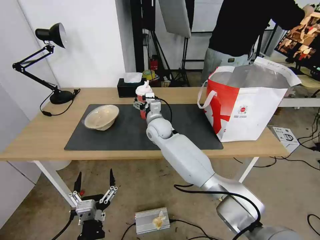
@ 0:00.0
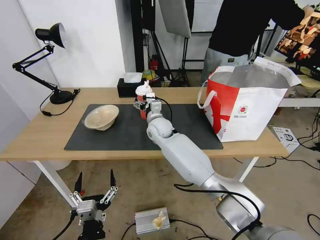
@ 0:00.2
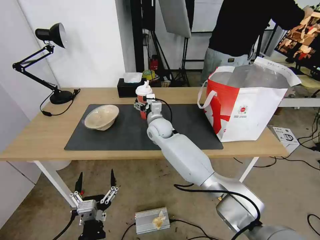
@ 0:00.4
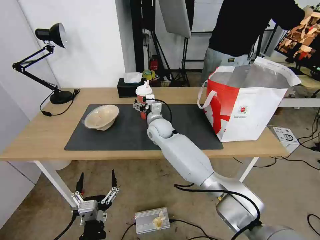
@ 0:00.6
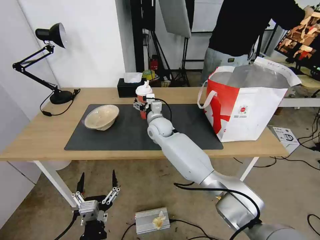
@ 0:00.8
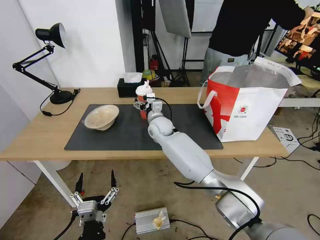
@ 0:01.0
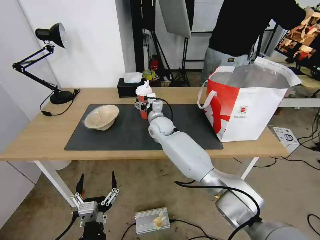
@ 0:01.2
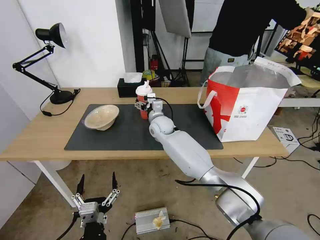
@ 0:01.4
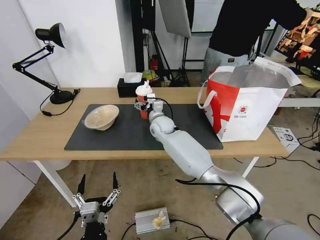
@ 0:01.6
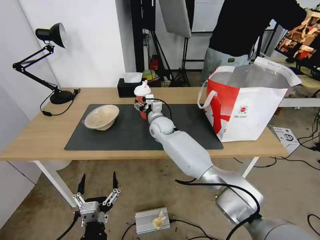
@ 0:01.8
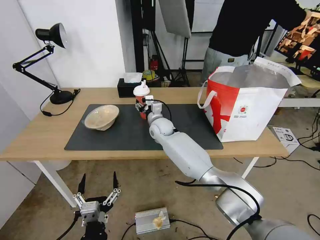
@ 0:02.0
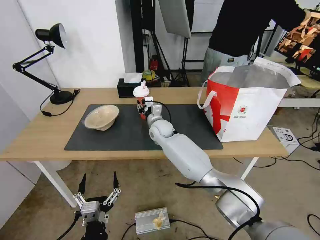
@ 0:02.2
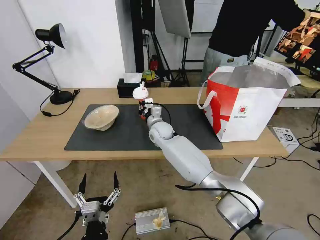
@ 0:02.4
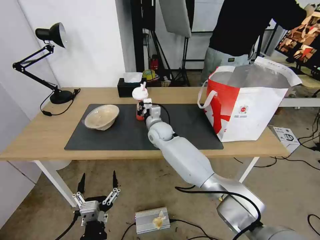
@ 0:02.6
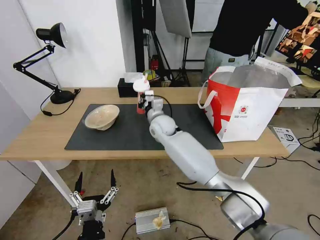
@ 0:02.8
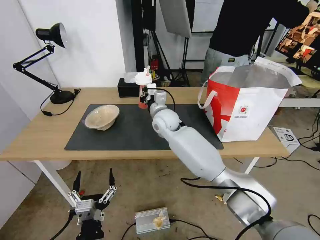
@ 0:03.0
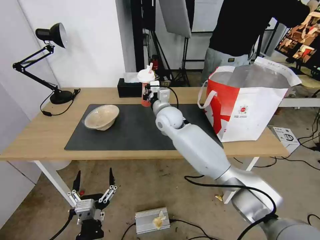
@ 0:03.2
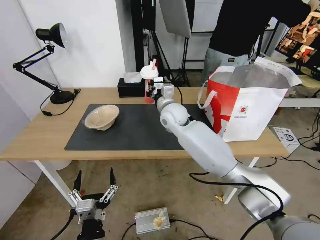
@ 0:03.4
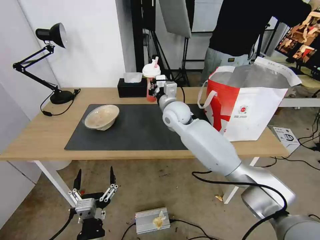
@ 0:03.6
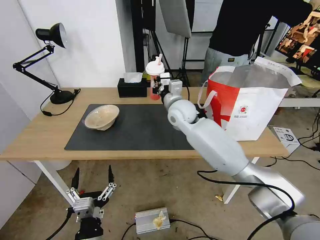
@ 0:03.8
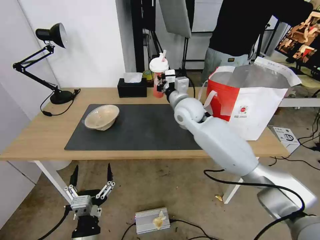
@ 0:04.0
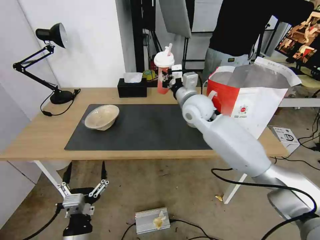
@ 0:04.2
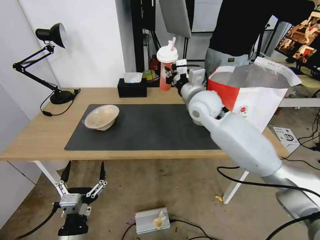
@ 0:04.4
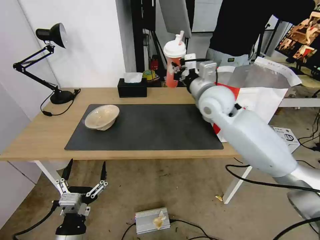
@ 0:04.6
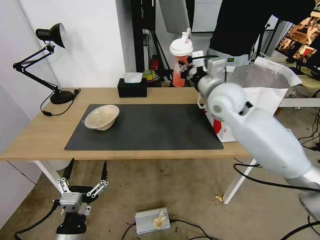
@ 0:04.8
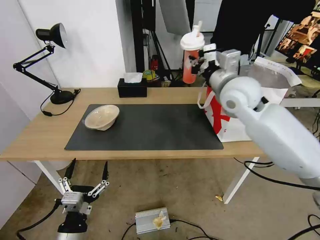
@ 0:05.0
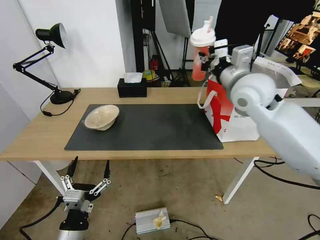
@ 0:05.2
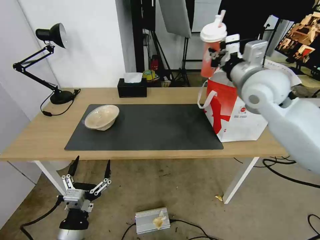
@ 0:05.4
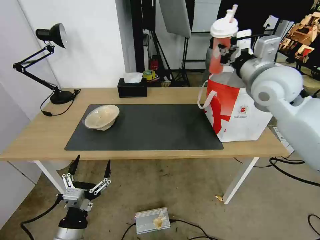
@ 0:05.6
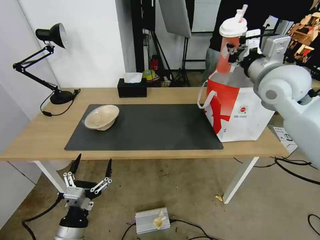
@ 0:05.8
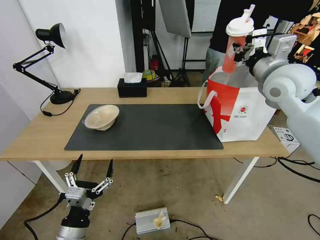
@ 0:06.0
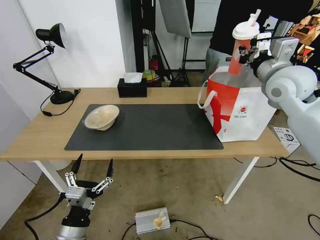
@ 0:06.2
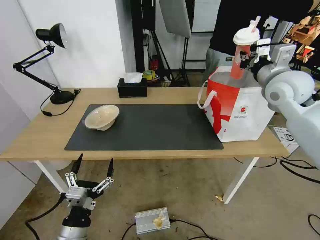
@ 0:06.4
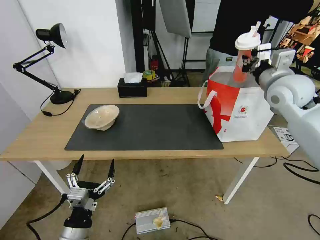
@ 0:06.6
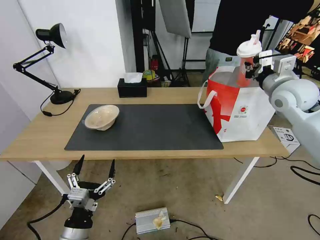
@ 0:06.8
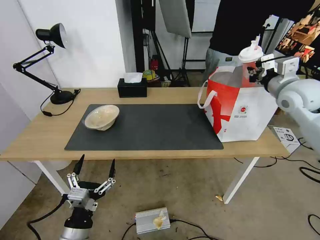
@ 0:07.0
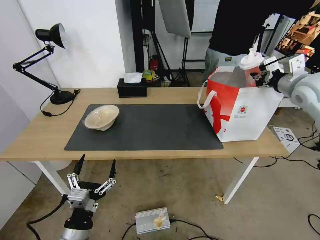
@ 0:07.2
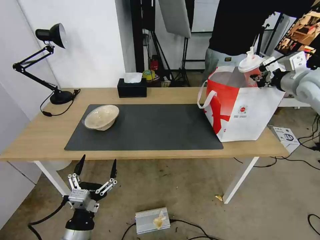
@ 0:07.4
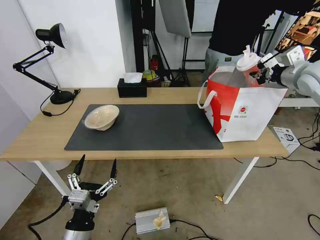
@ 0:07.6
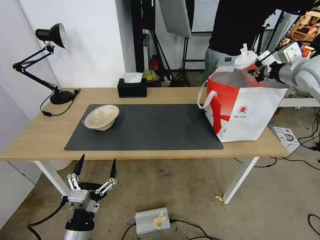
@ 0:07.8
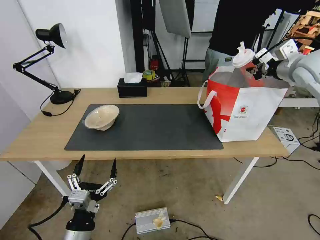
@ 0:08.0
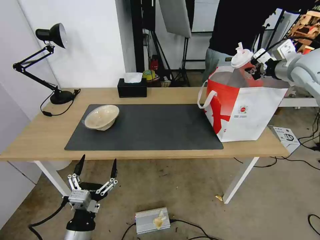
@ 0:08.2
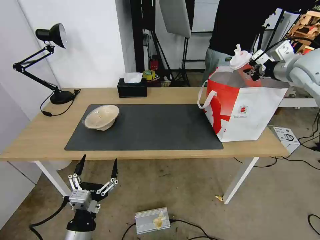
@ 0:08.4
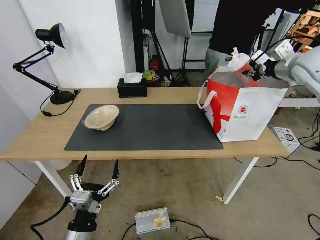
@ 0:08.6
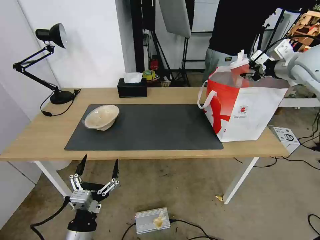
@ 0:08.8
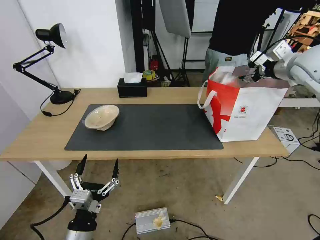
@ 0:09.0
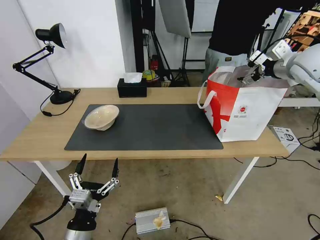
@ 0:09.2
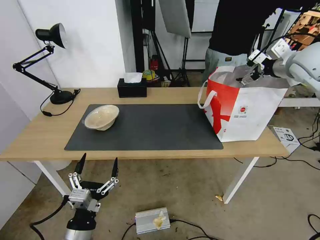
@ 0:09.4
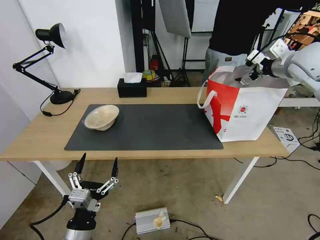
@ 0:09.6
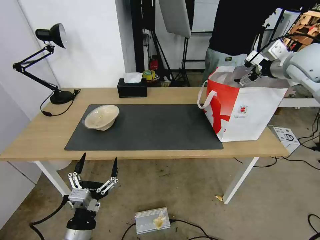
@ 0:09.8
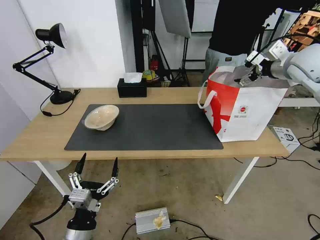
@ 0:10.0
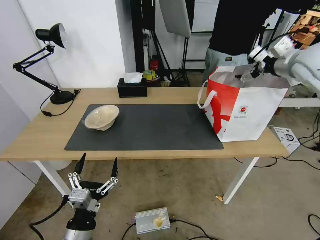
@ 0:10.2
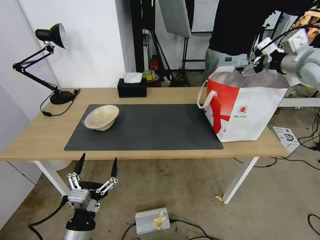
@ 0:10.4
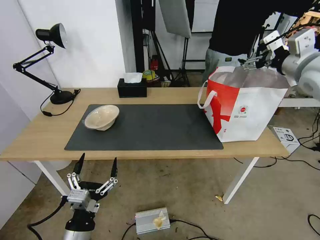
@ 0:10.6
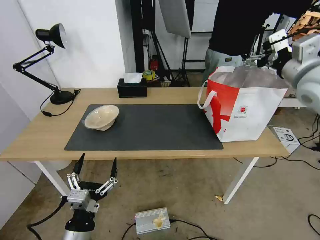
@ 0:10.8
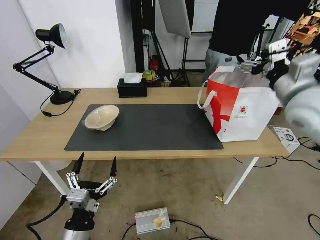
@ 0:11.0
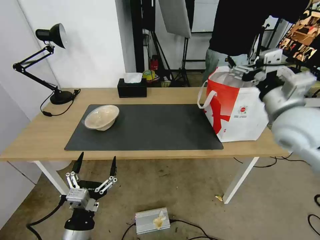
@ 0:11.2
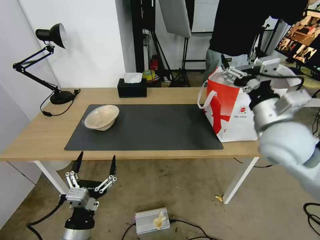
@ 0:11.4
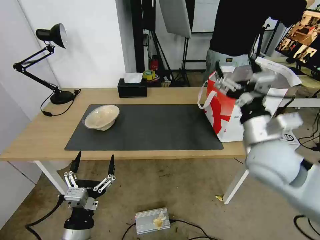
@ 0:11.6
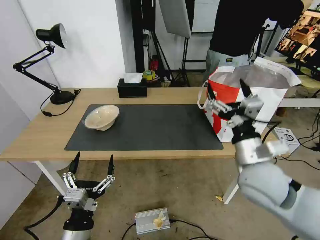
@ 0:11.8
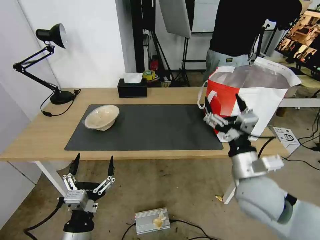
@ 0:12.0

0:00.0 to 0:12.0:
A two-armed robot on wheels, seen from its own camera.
Task of the whole recording: Pick up the trash from the table and place it into the takeout bag.
0:00.0 to 0:01.6: The right gripper ends up some 5 cm from where it was.
0:01.6 to 0:03.0: The right gripper travels upward by about 5 cm, and closes up.
0:03.0 to 0:04.4: The right gripper heads to the right and upward, covering approximately 15 cm. The left gripper changes place by roughly 5 cm.
0:04.4 to 0:06.0: The right gripper shifts some 20 cm to the right and upward.
0:06.0 to 0:07.6: The right gripper moves to the right, about 10 cm.
0:07.6 to 0:09.0: The right gripper opens.
0:09.0 to 0:10.4: The right gripper opens.
0:10.4 to 0:12.0: The right gripper is displaced downward, backward and to the left by roughly 35 cm.

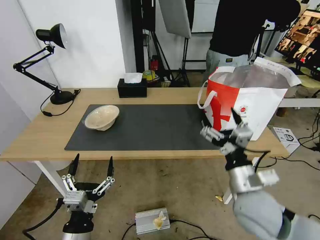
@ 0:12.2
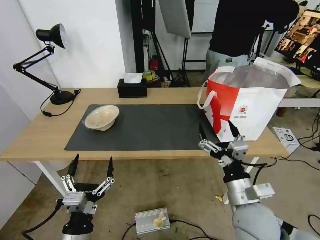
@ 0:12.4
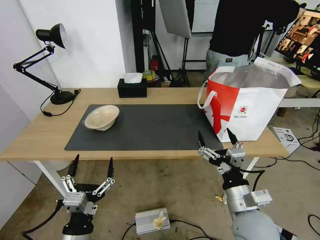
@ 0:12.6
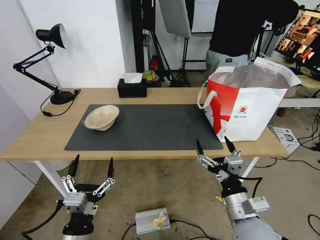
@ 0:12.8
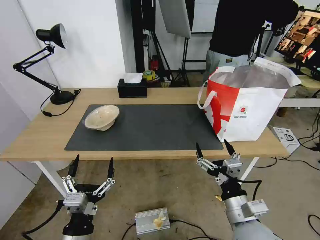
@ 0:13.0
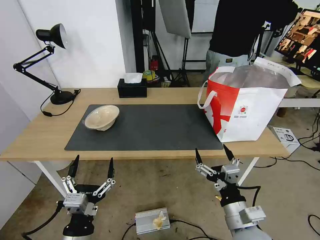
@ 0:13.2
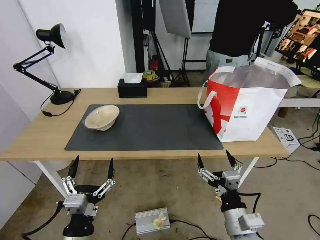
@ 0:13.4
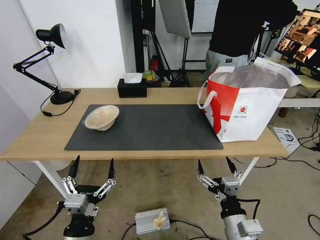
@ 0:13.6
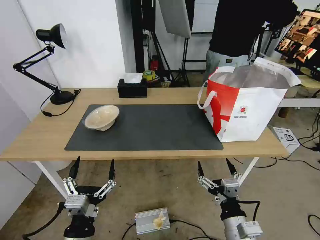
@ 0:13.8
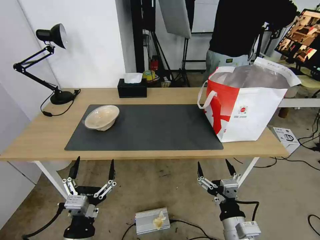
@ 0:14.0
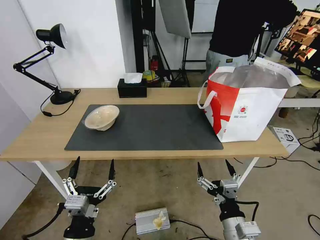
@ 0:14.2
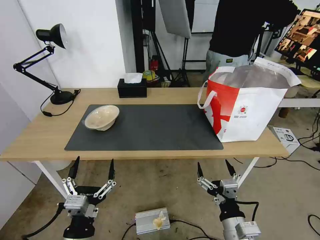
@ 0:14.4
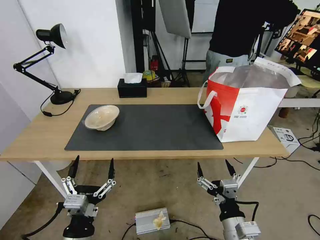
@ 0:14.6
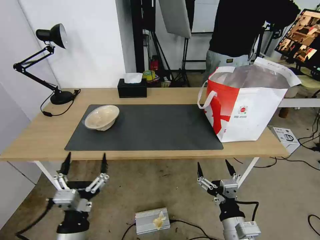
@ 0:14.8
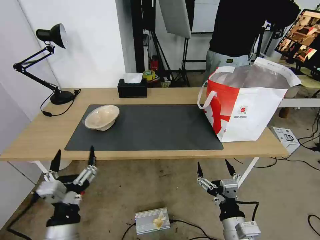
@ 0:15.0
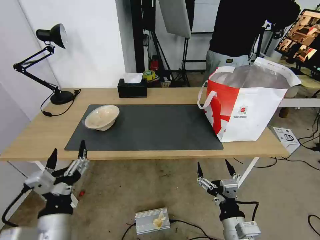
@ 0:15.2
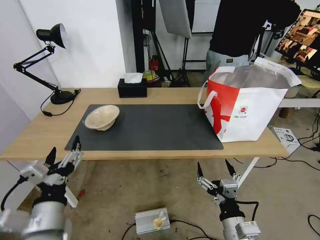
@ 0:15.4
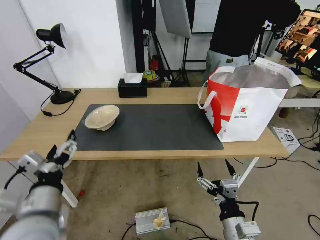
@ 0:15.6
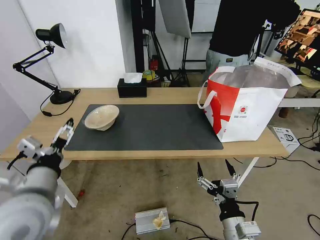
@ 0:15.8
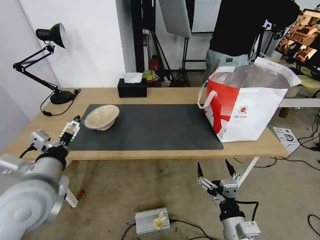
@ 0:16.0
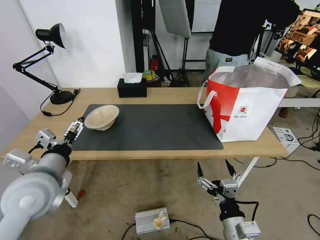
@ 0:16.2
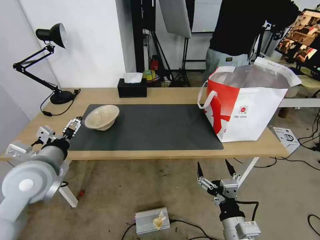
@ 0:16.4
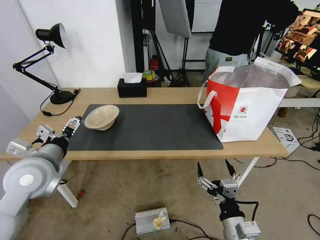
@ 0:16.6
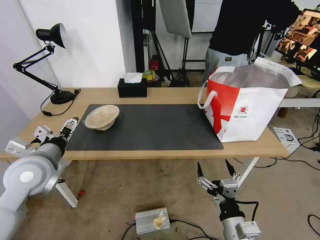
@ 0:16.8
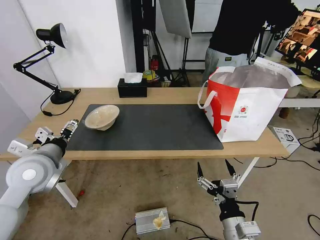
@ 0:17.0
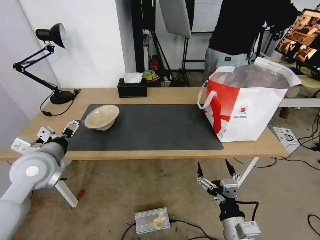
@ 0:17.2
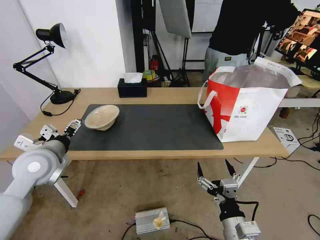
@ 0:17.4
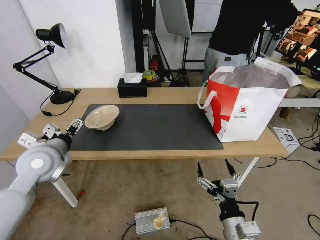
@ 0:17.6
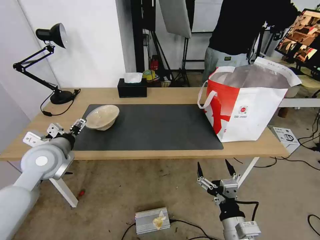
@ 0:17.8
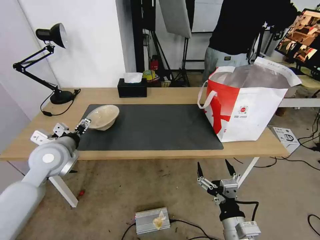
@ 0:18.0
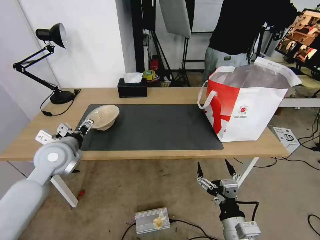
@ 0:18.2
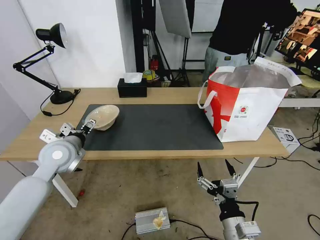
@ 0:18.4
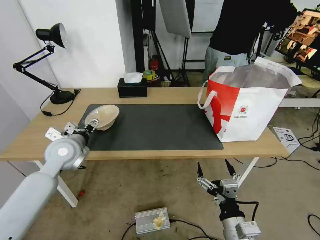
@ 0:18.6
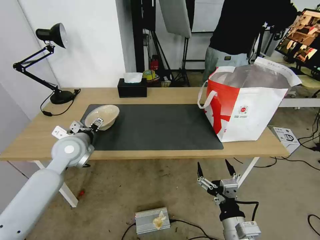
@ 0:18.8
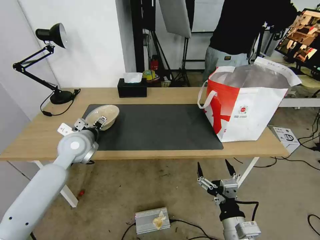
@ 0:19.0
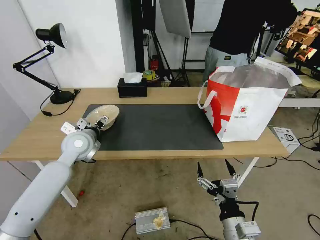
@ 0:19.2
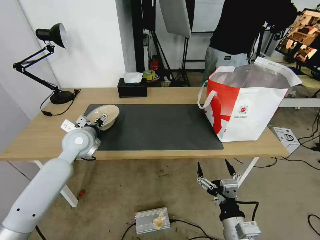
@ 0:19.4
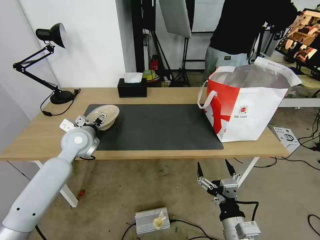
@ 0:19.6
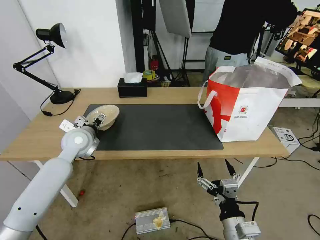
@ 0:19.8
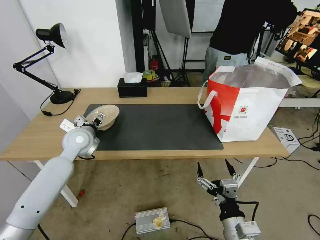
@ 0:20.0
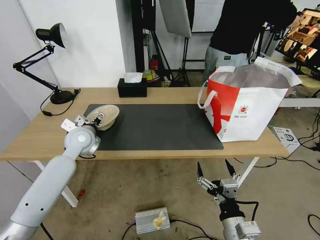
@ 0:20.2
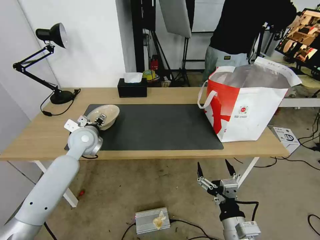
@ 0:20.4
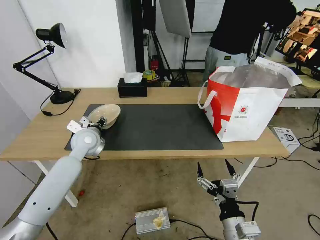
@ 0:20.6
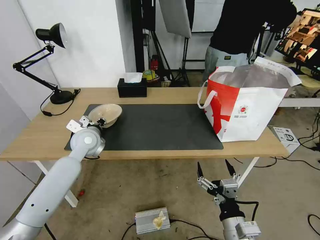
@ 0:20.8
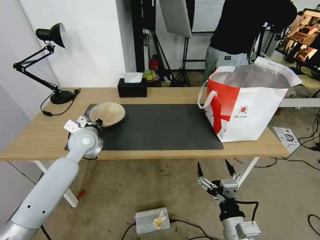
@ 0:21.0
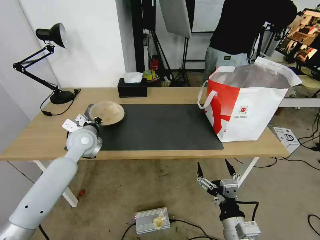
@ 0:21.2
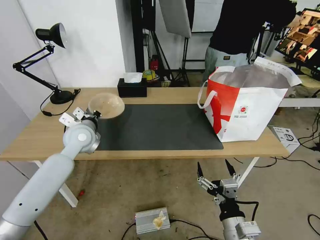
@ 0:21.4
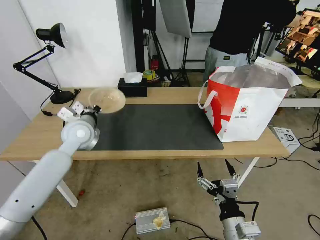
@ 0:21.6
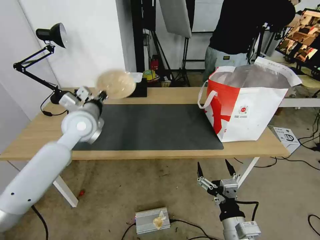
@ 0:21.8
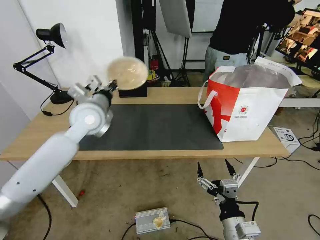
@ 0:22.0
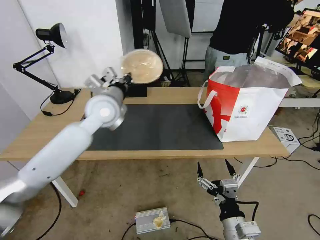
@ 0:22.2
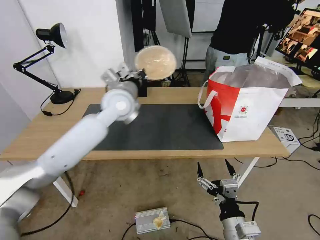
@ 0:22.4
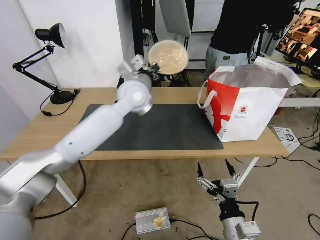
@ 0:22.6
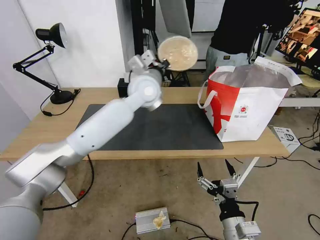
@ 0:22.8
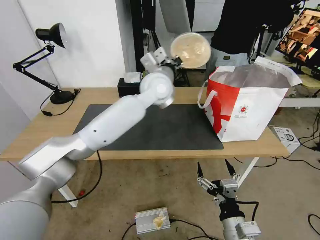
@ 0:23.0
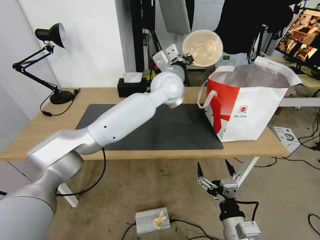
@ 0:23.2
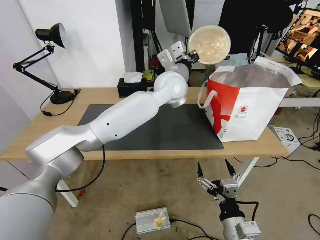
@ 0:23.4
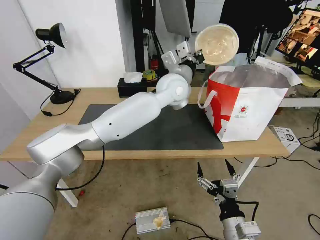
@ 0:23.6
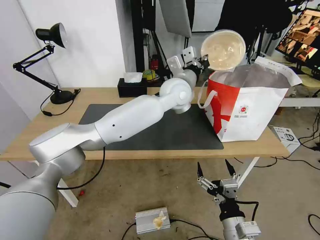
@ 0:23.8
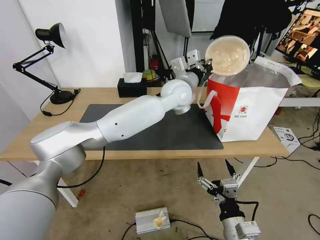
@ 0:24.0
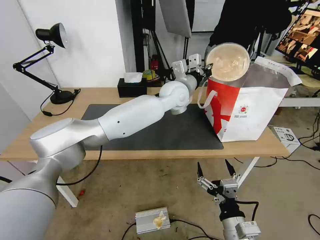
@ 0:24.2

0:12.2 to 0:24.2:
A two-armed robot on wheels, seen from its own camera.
Task of the whole recording: Pick up the trash from the table and place it into the takeout bag.
0:12.2 to 0:13.8: The right gripper travels backward and downward by approximately 15 cm.
0:13.8 to 0:15.2: The left gripper moves upward, roughly 5 cm.
0:15.2 to 0:16.6: The left gripper goes some 20 cm forward, to the left and upward.
0:16.6 to 0:18.2: The left gripper travels forward by roughly 10 cm.
0:18.2 to 0:19.8: The left gripper goes approximately 5 cm forward.
0:19.8 to 0:21.2: The left gripper closes up.
0:21.2 to 0:22.6: The left gripper heads to the right and upward, covering about 25 cm.
0:22.6 to 0:24.2: The left gripper heads to the right, covering about 15 cm.
